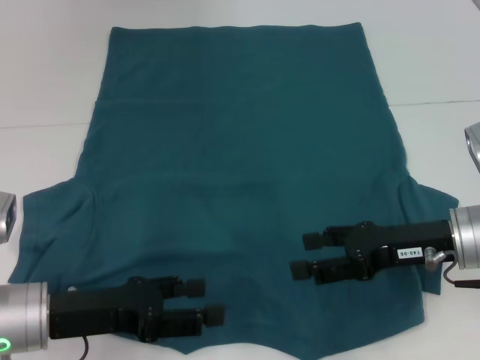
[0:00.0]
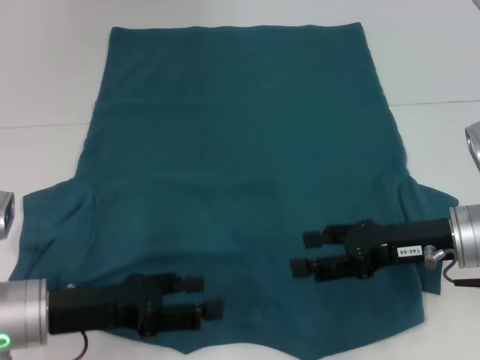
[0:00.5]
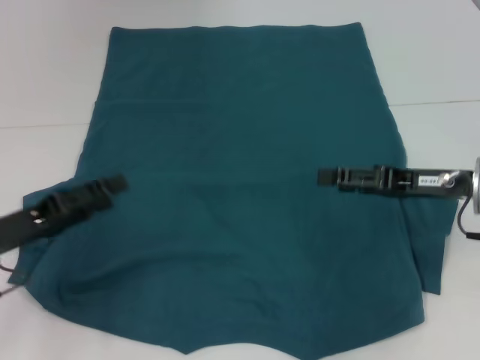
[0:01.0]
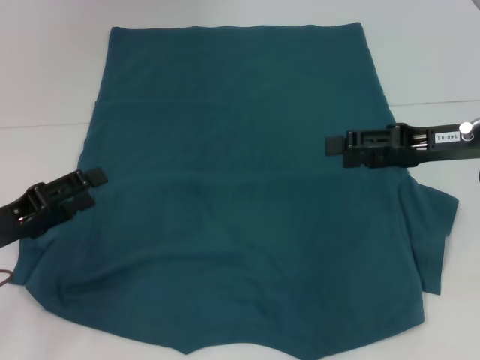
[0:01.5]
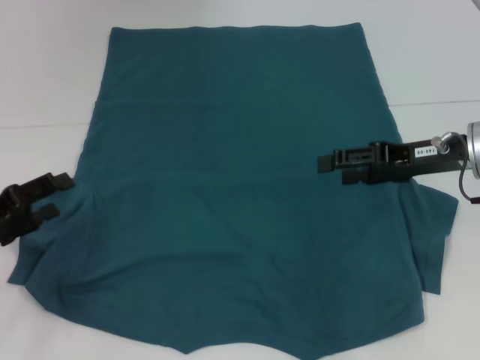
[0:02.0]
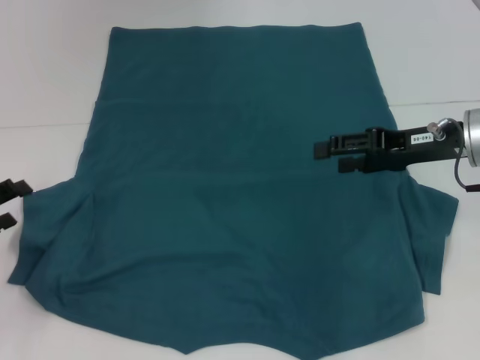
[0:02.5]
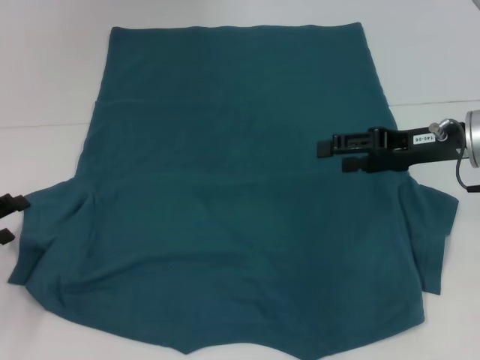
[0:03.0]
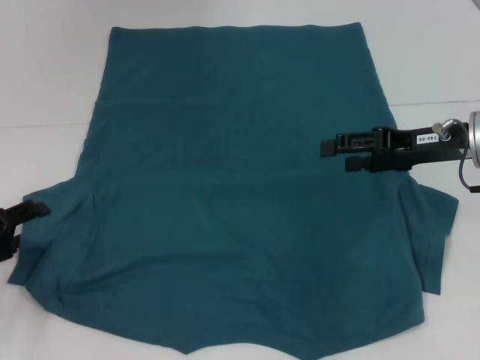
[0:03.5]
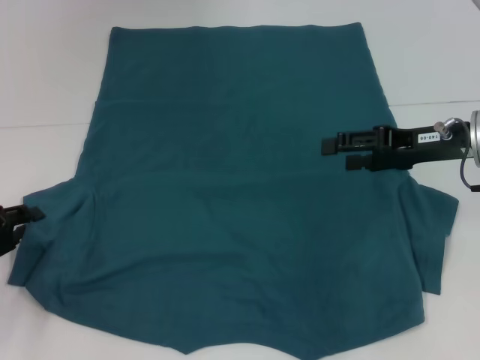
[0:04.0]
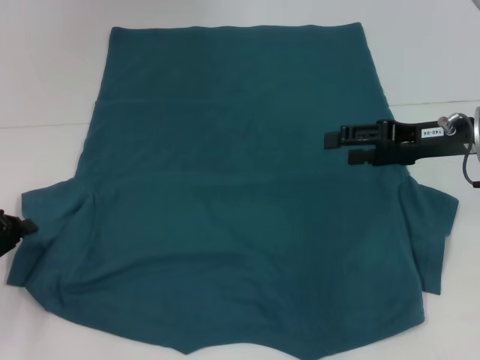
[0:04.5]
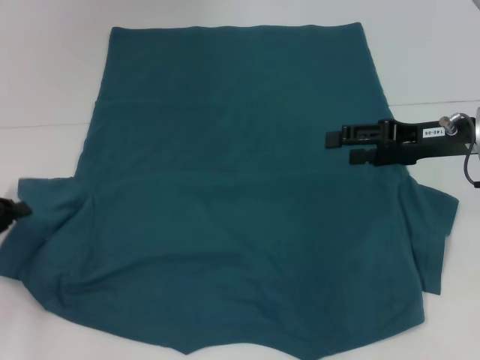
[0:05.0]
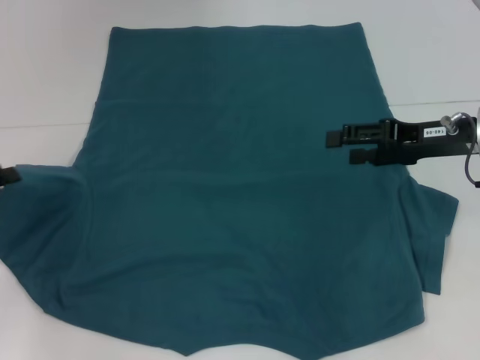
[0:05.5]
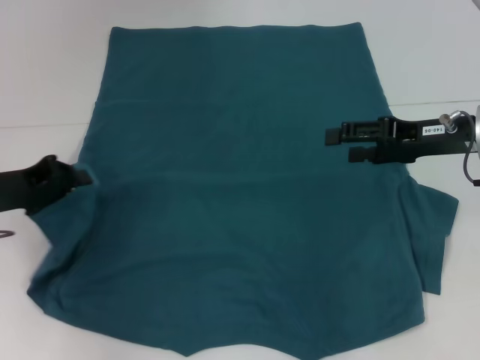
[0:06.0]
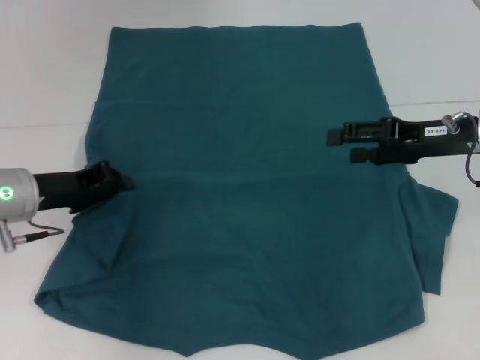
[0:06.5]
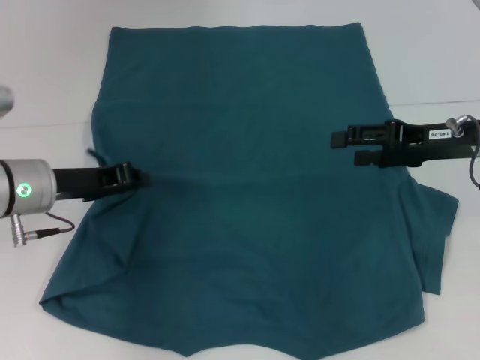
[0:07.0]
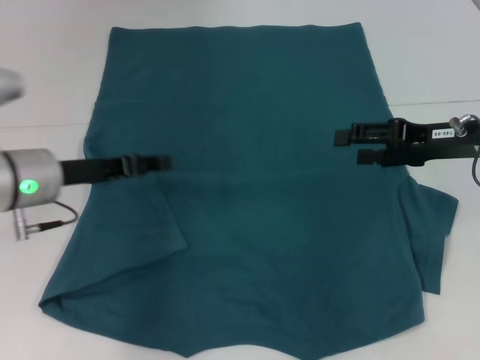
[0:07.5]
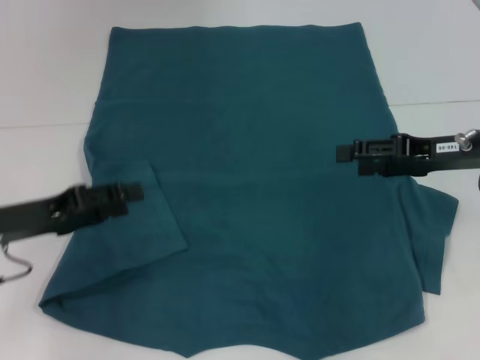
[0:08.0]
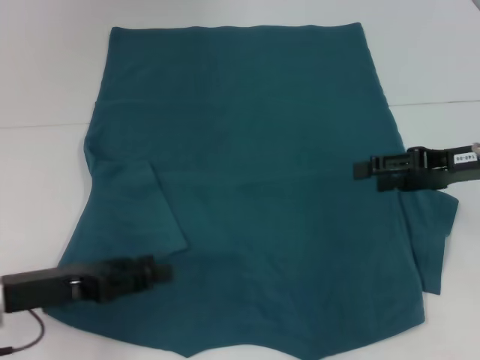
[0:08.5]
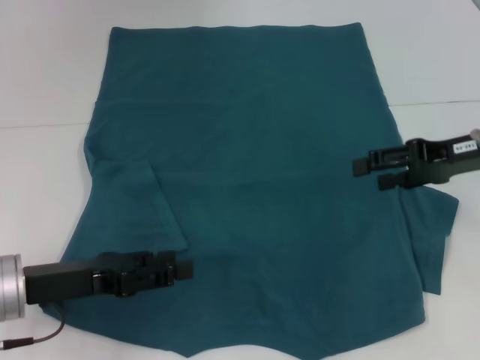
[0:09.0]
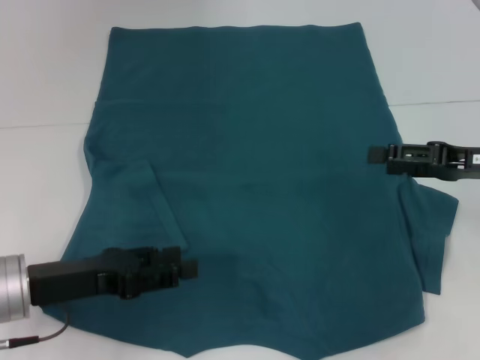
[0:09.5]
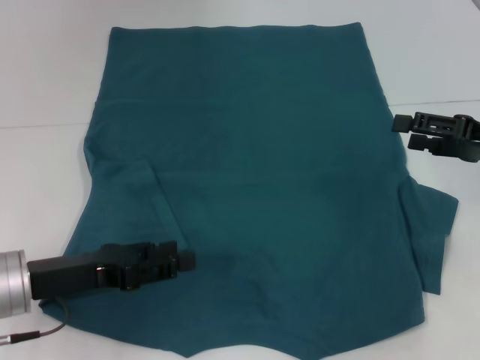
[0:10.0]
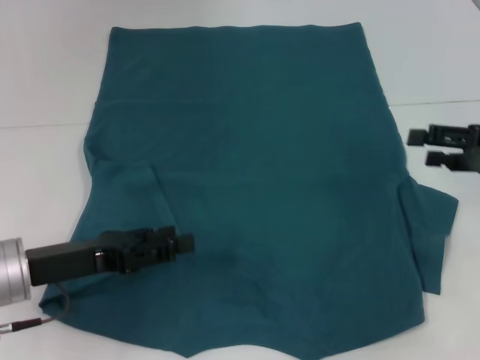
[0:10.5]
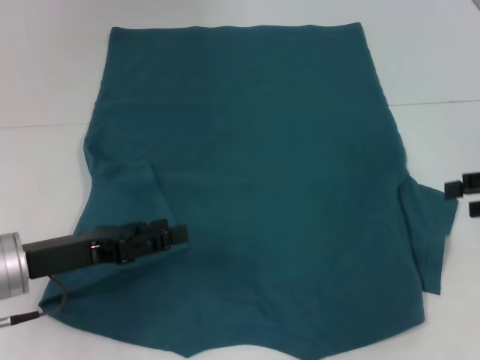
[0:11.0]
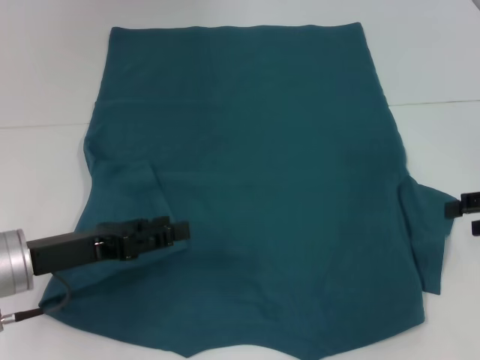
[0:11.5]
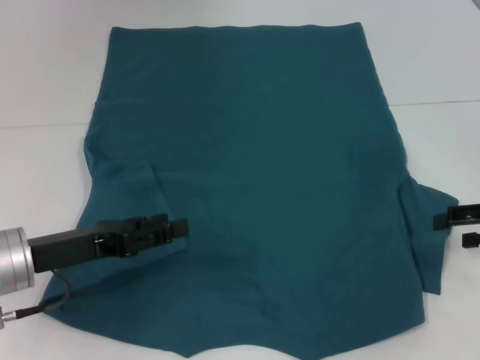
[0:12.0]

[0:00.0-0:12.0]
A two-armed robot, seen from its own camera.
Step, 0:00.0 to 0:07.0: Fold the bottom left sleeve with your left hand.
0:00.0 to 0:02.0: The right gripper is displaced forward by approximately 5 cm; the left gripper travels to the left by about 10 cm.
0:02.0 to 0:04.0: There are only small adjustments of the grippers.
0:04.0 to 0:06.0: The left gripper travels upward by some 5 cm, and closes its fingers.
0:06.0 to 0:08.0: The left gripper goes to the right and returns, roughly 10 cm each way, and opens its fingers.
0:08.0 to 0:10.0: The left gripper moves roughly 5 cm. The right gripper moves to the right, roughly 5 cm.

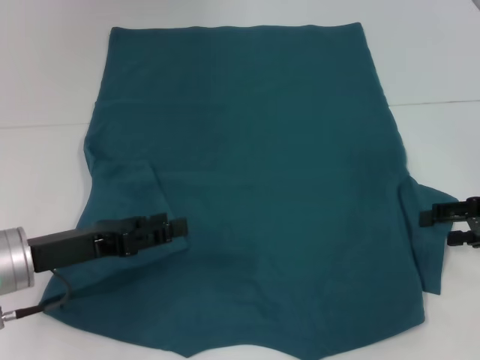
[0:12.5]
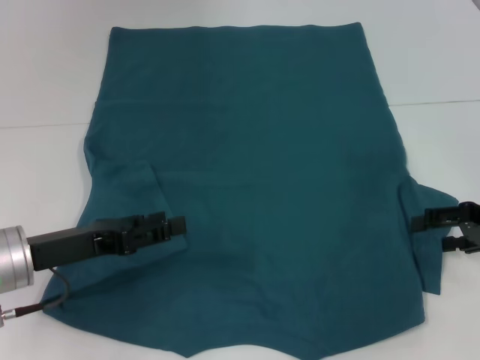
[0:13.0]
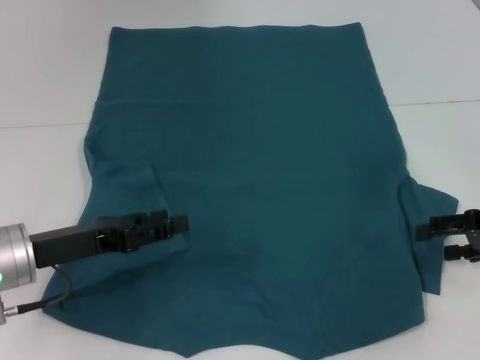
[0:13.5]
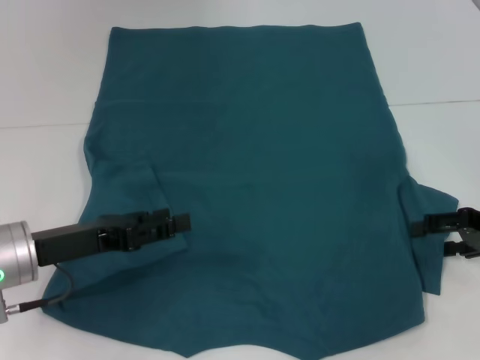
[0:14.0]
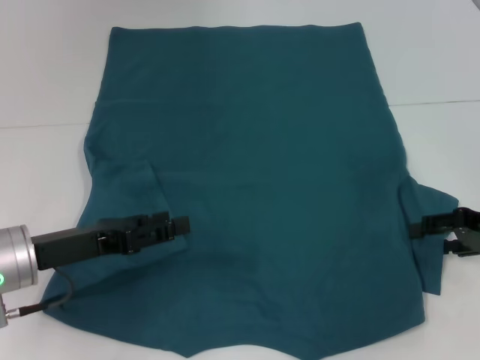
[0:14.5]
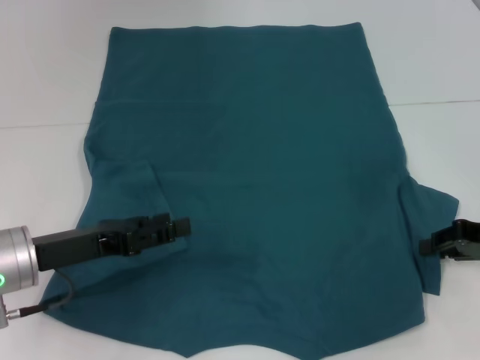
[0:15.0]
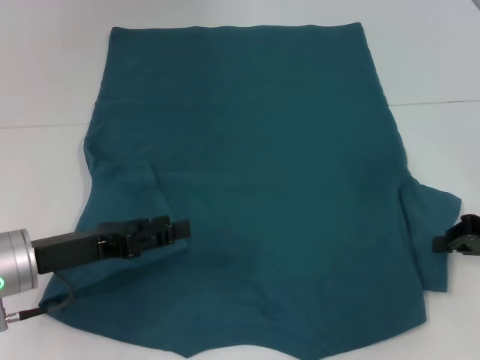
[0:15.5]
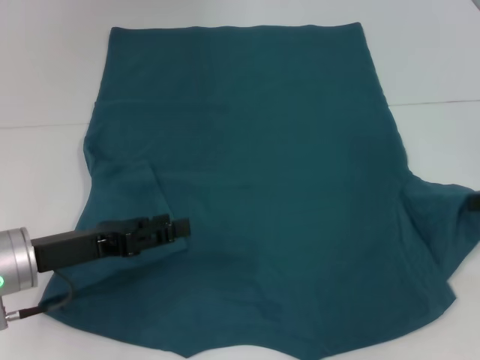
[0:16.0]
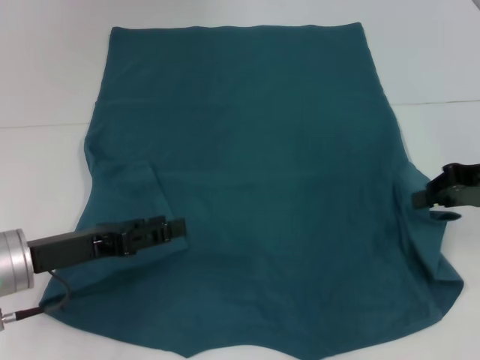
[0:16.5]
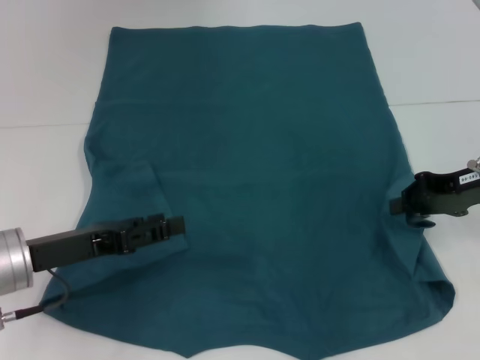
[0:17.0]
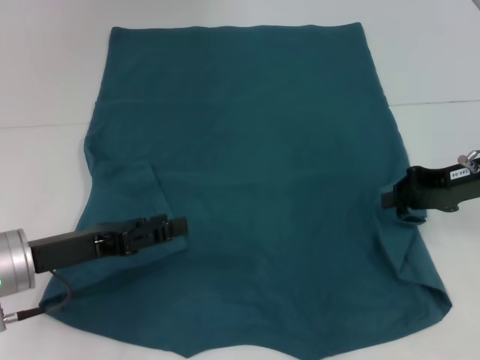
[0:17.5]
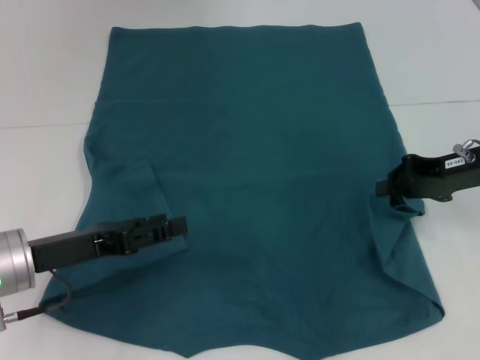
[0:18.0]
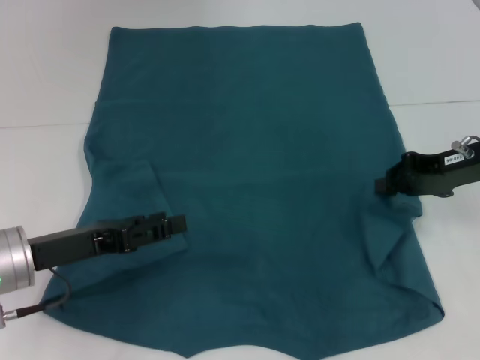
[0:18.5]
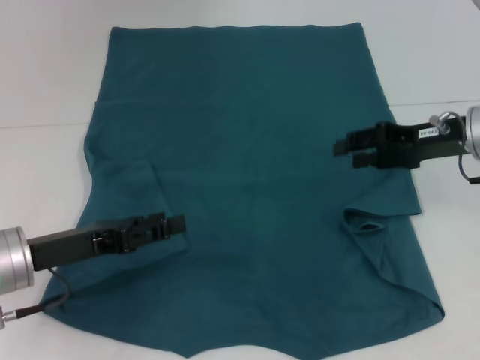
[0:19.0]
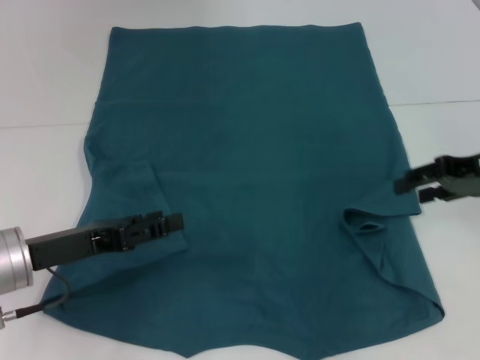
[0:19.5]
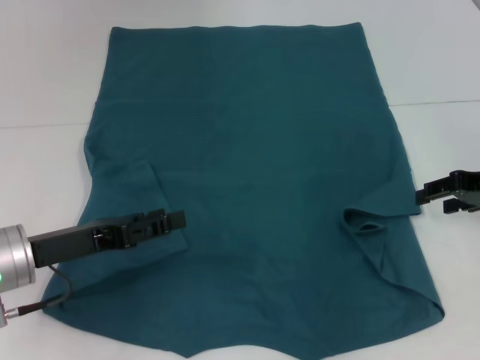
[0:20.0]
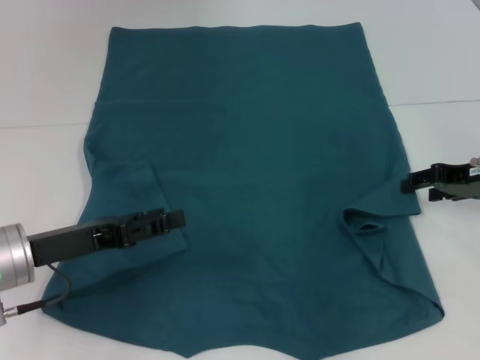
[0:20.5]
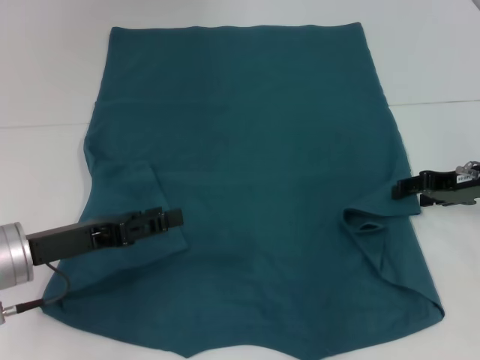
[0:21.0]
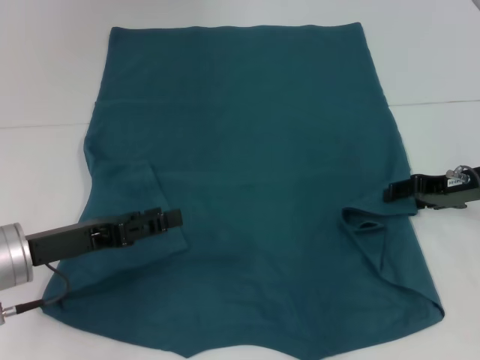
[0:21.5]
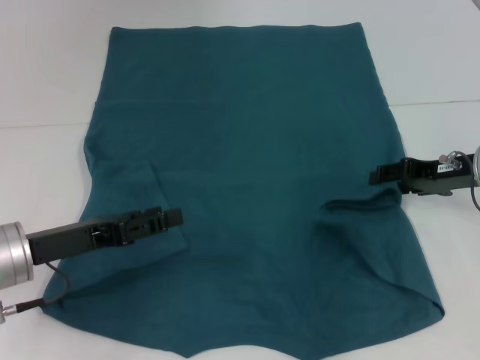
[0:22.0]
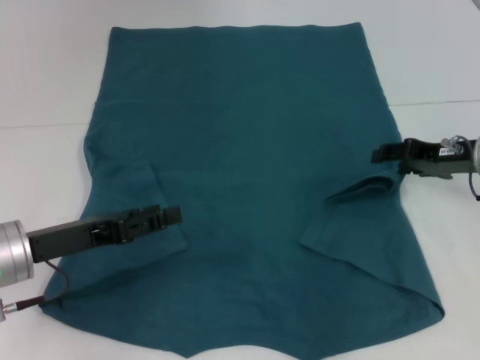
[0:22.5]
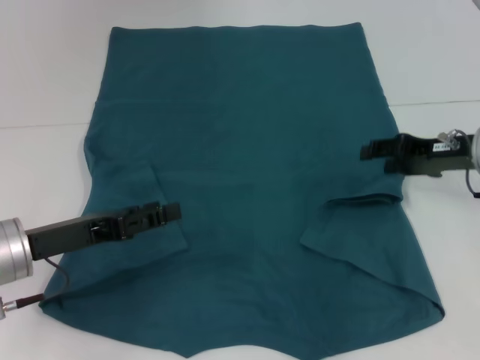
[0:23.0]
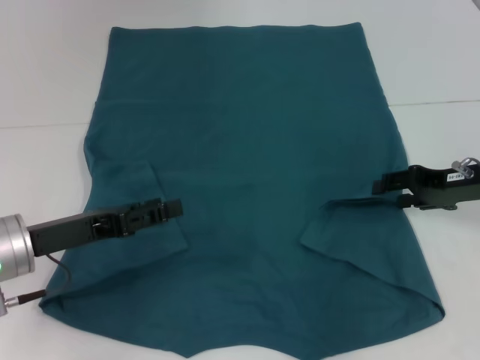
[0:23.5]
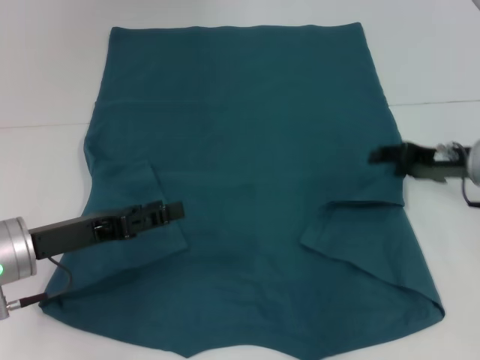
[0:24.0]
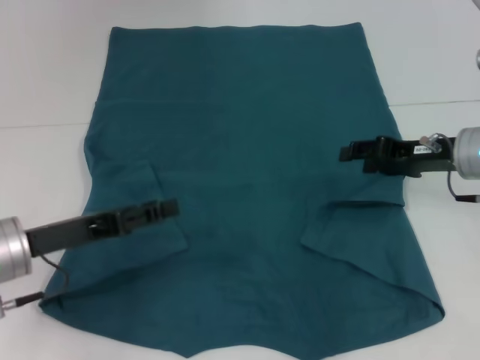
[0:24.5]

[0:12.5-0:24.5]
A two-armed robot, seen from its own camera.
Step, 0:12.5 to 0:24.5: Fold the bottom right sleeve to the right.
0:12.5 to 0:14.5: The grippers move only a little.
0:14.5 to 0:16.5: The right gripper shifts some 5 cm upward, and closes its fingers.
0:16.5 to 0:18.5: The grippers move only a little.
0:18.5 to 0:20.5: The right gripper opens up.
0:20.5 to 0:24.5: The grippers move only a little.

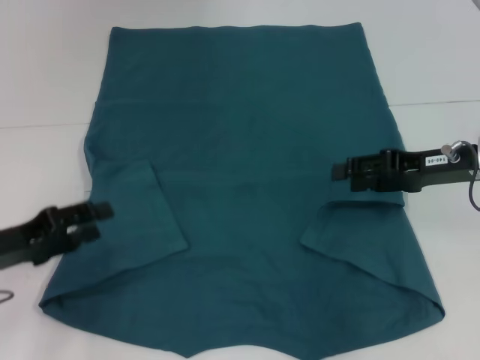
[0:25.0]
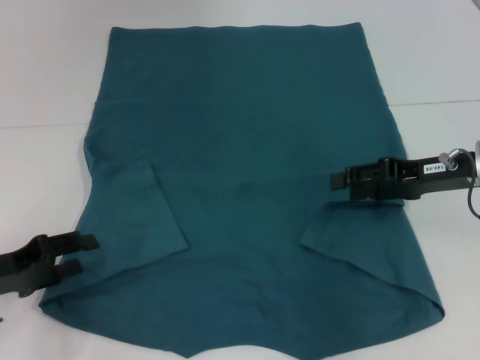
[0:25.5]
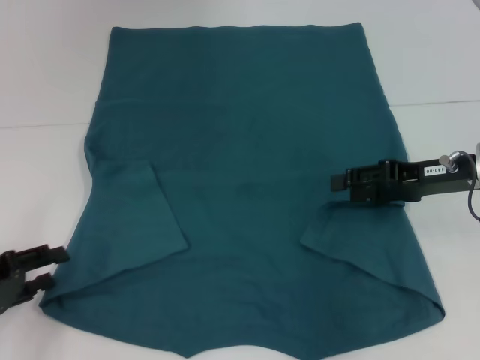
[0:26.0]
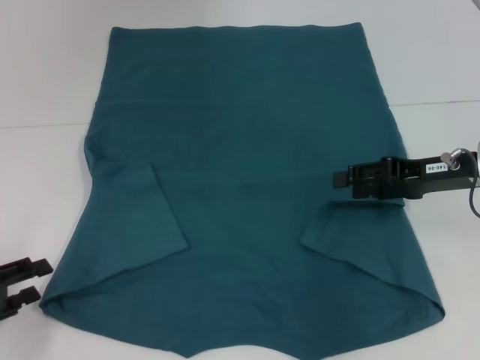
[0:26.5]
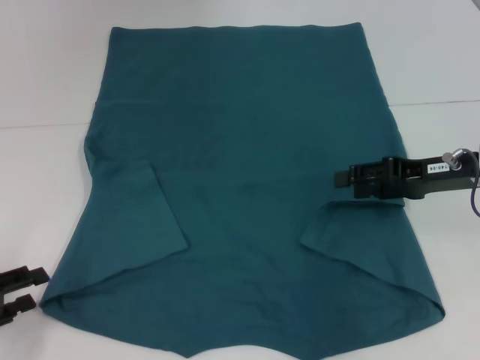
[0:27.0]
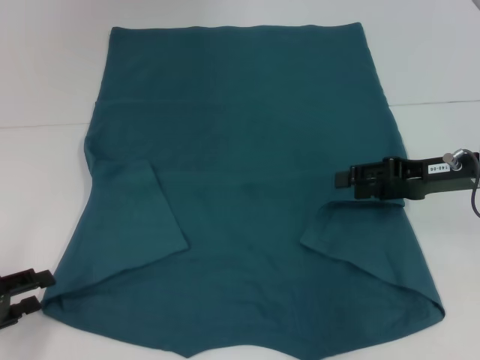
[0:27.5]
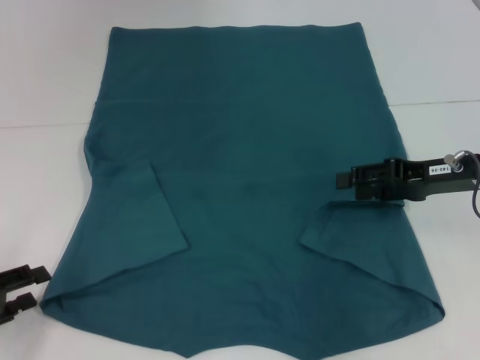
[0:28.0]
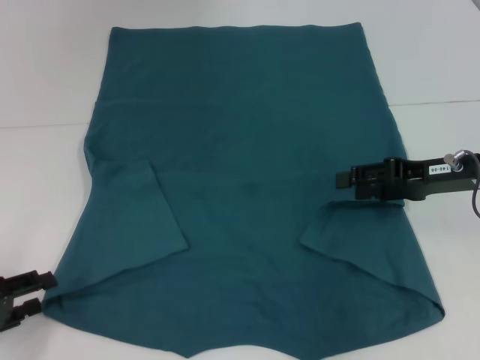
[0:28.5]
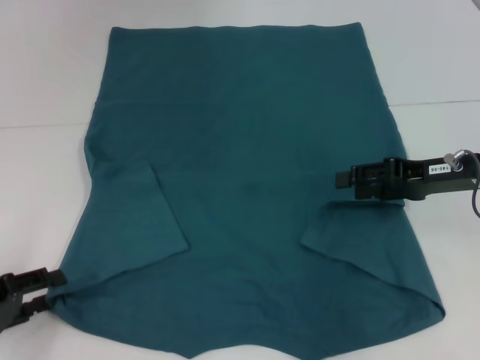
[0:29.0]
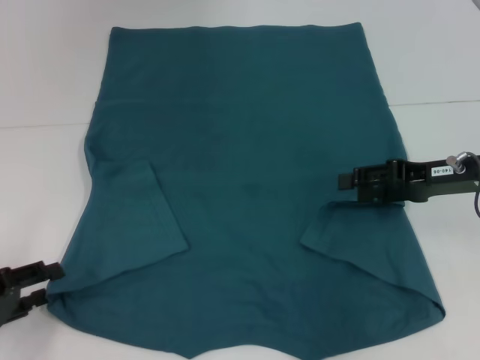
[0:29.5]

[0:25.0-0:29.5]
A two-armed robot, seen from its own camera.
0:25.0 to 0:27.0: The left gripper travels backward and to the left by some 10 cm.
0:27.0 to 0:29.5: There are only small adjustments of the grippers.
